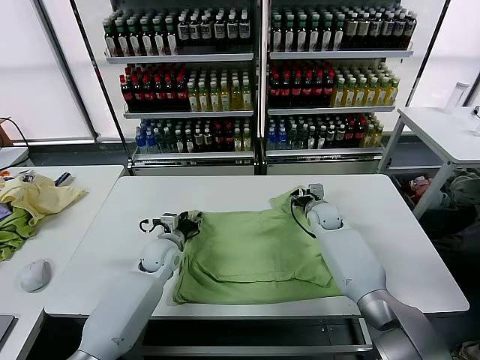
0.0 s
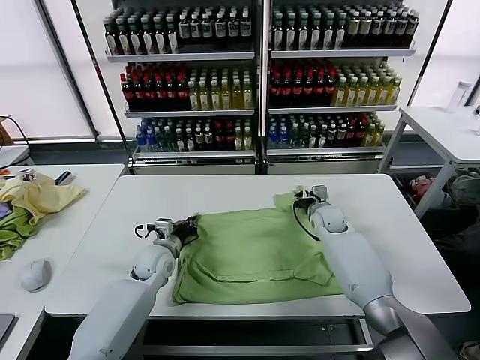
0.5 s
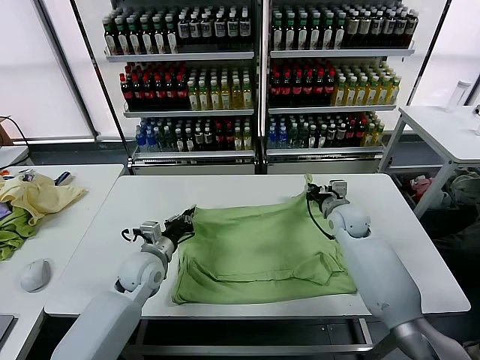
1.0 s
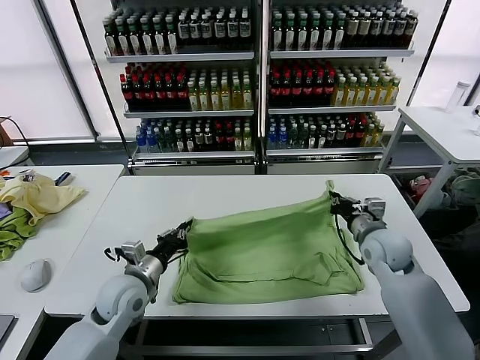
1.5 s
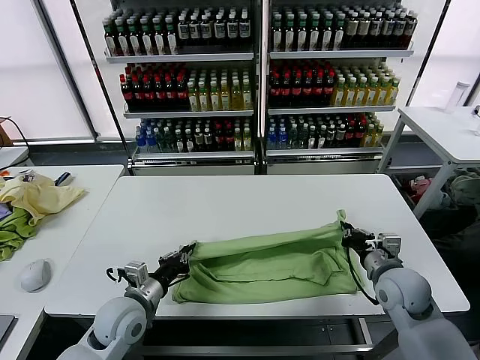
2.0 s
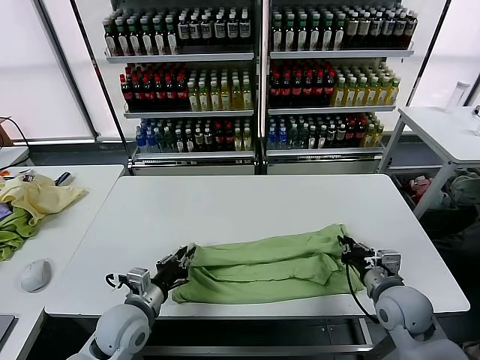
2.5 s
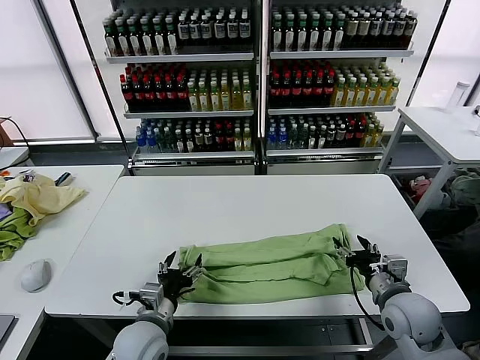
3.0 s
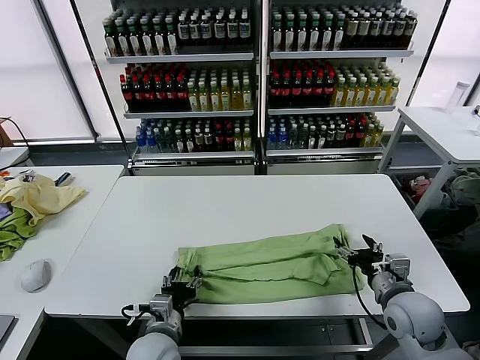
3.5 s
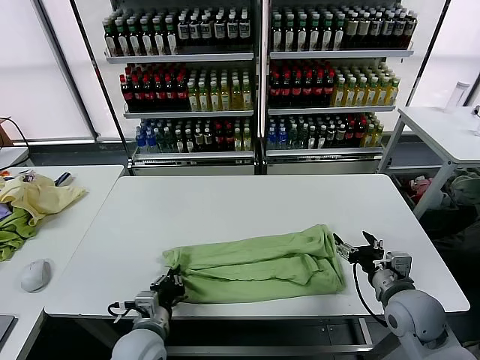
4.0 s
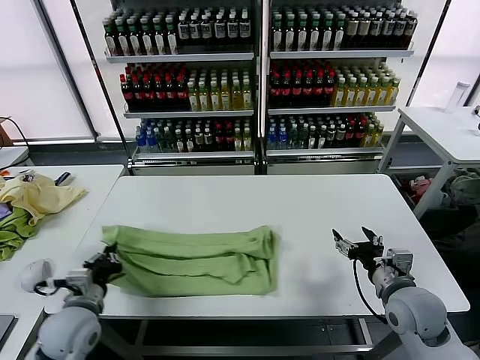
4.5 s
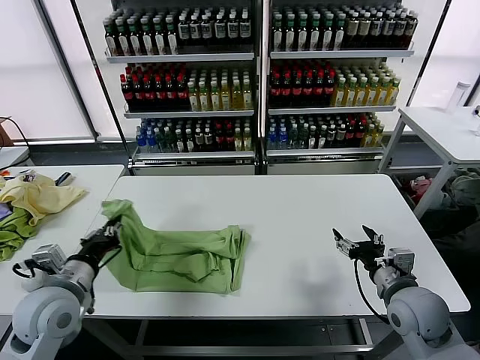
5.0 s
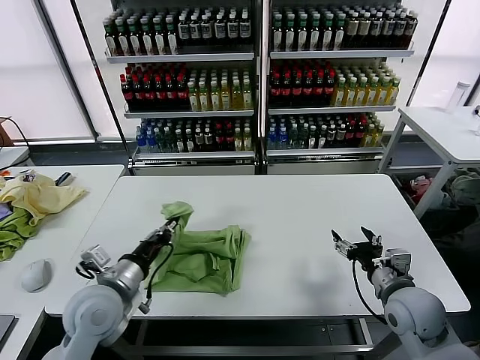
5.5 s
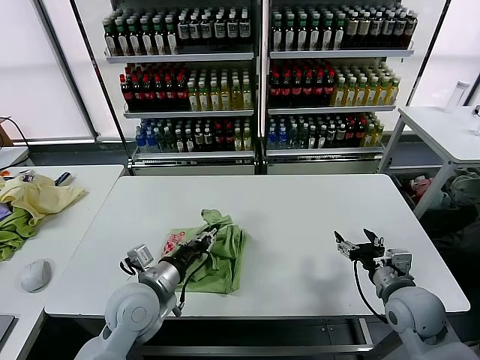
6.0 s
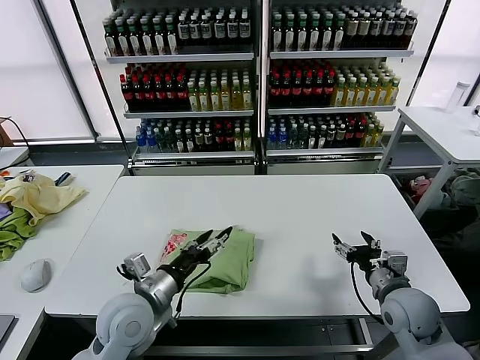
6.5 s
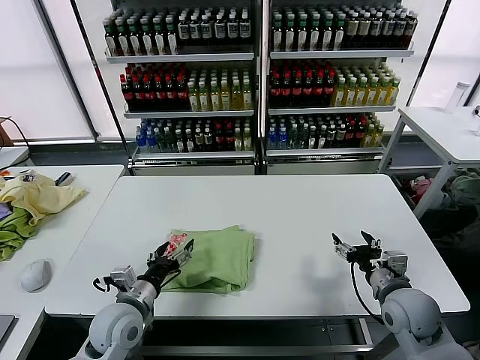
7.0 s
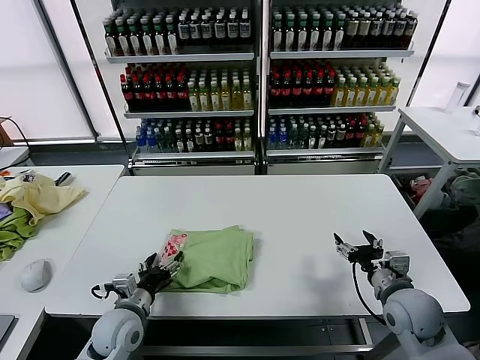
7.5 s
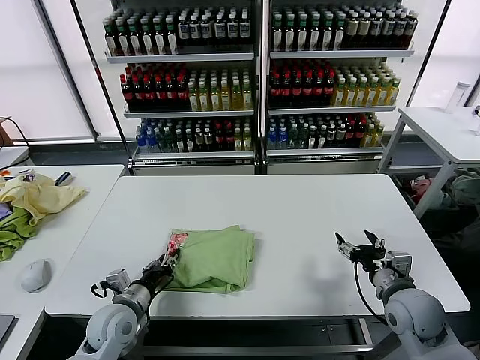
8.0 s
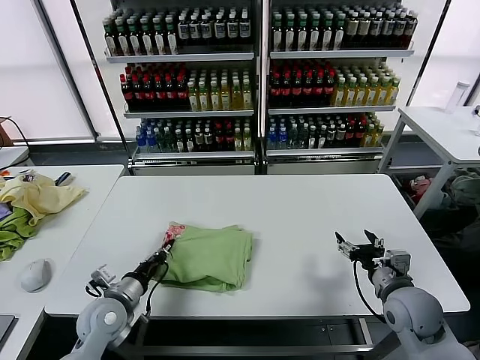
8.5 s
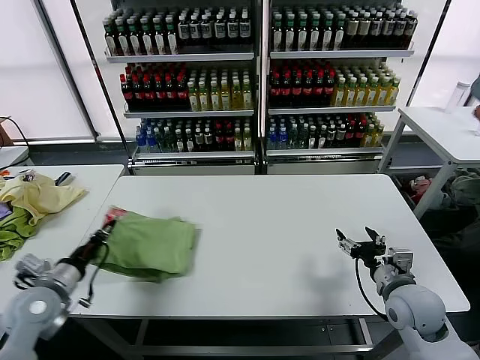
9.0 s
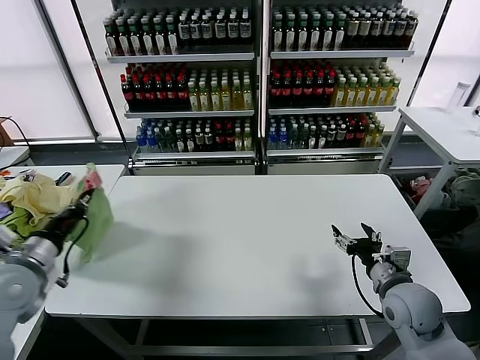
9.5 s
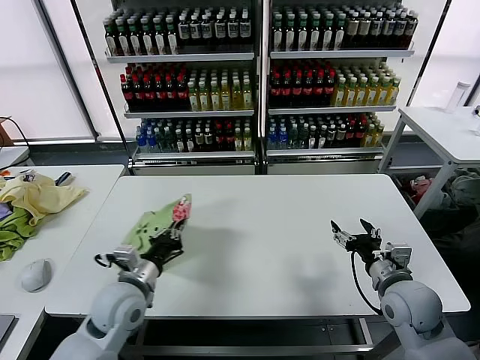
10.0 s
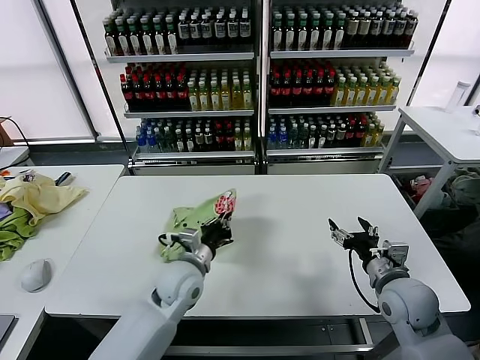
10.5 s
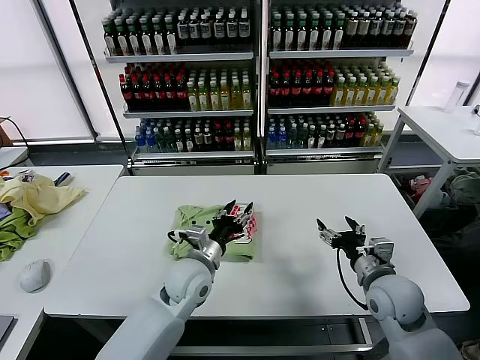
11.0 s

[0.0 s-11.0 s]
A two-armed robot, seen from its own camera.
Task of the whole recording: fold and organize the clothes.
Step, 0.5 to 2.5 s: use both grippers to drag the upper edge of the fabric backward and fold it over the lower edge.
Step, 3.0 to 3.5 s: use the left gripper to clamp the left edge of the fabric.
Step, 4.0 to 6.0 s: use the left gripper to drag the left edge of the fabric to the left and folds it over the right edge.
Step, 6.5 to 10.5 s: Flip the folded clothes over with left gripper.
0.0 to 2.0 s: Both grippers travel together backward, approximately 20 cm. The right gripper closes up; the left gripper closes.
2.0 to 3.5 s: The left gripper heads to the right and backward, covering approximately 10 cm, and opens its fingers. Meanwhile the right gripper is displaced backward by roughly 5 cm, and opens up.
3.5 to 5.5 s: The left gripper goes some 15 cm upward and to the left, and closes up.
5.5 to 7.5 s: The left gripper travels downward by about 10 cm, and opens up.
7.5 to 9.0 s: The left gripper travels to the left and upward by roughly 15 cm, and closes its fingers.
9.0 to 11.0 s: The left gripper travels to the right by some 30 cm, and opens.

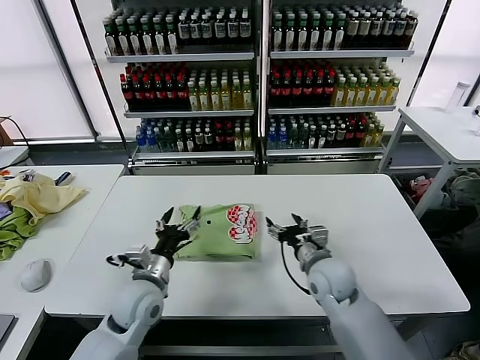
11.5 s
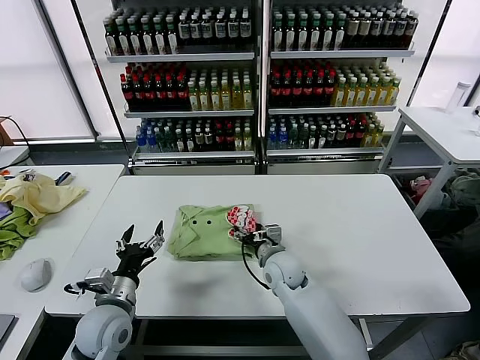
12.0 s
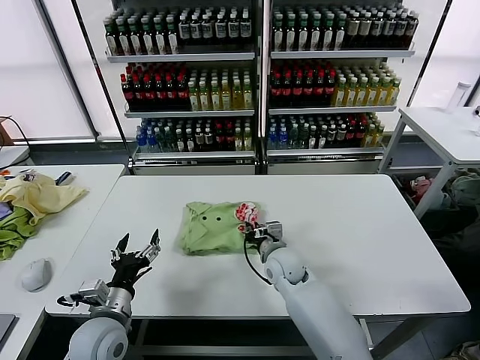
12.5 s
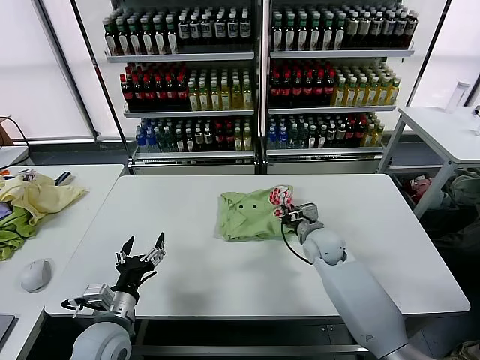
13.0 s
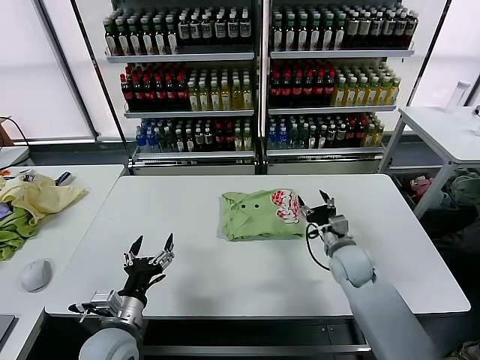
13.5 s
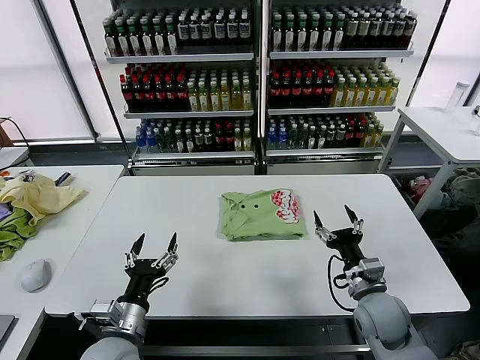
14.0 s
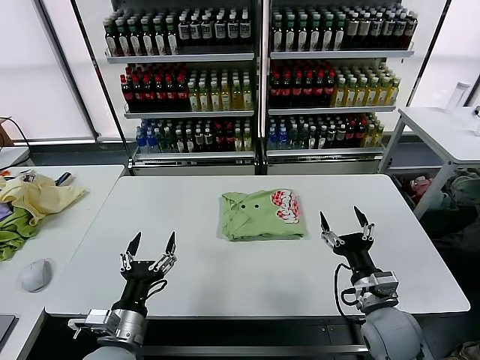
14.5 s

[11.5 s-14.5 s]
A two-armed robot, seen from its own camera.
Task of the whole recording: fold and organize the clothes.
Step, 11.5 to 13.0 s: Drag the clothes to the center of the table.
11.5 to 13.0 s: The left gripper travels backward and to the left by some 10 cm. The right gripper heads forward, covering approximately 10 cm, travels to the left and back again, roughly 10 cm each way, and closes.
13.0 to 14.5 s: The left gripper ends up about 5 cm from where it was. The right gripper goes about 20 cm backward and to the right, and opens its fingers.

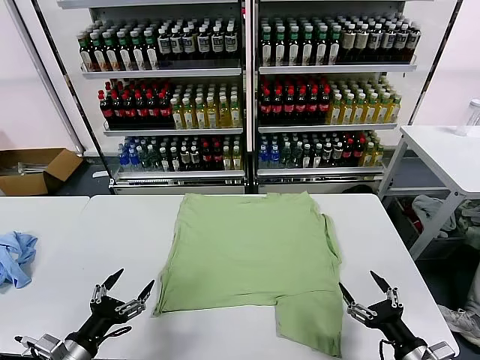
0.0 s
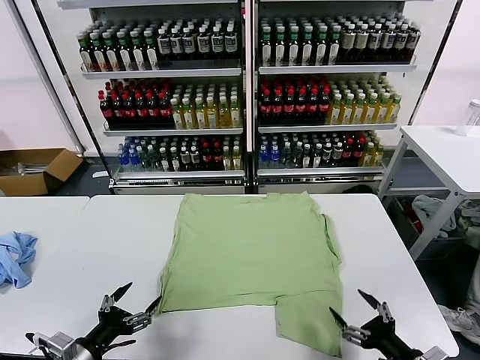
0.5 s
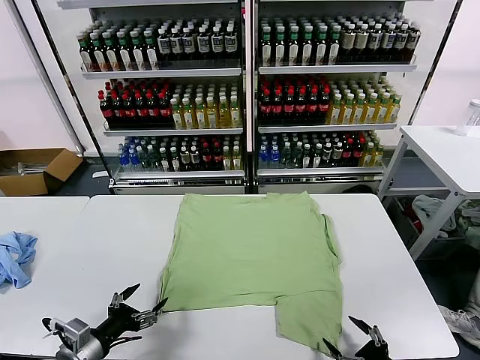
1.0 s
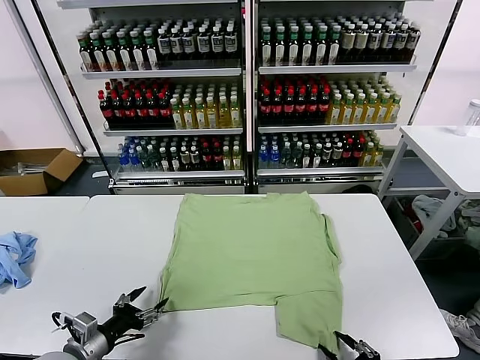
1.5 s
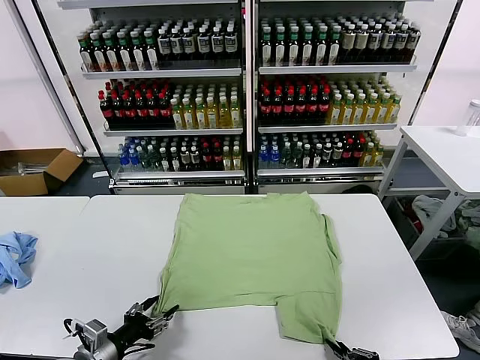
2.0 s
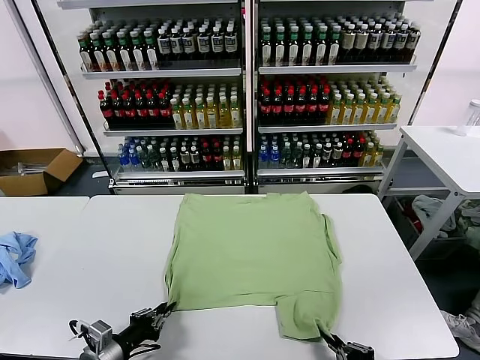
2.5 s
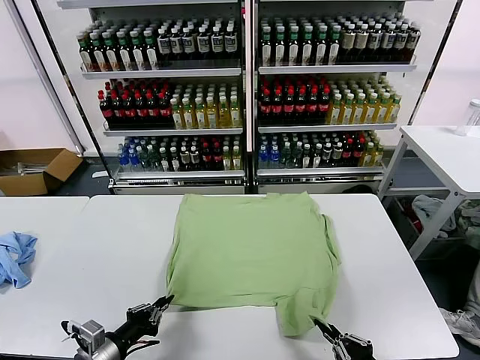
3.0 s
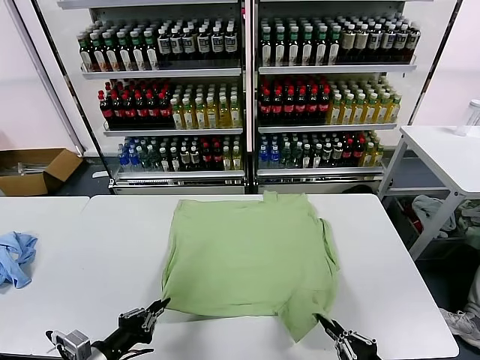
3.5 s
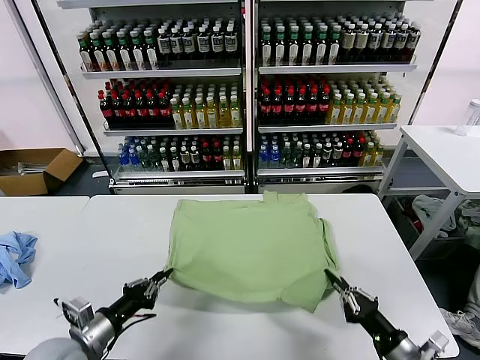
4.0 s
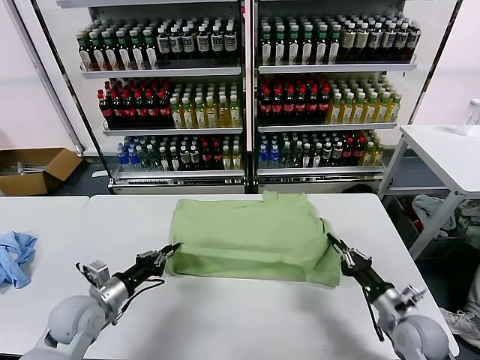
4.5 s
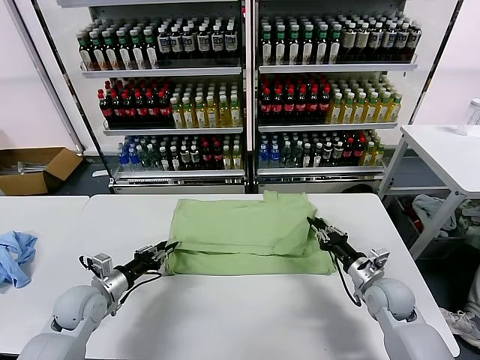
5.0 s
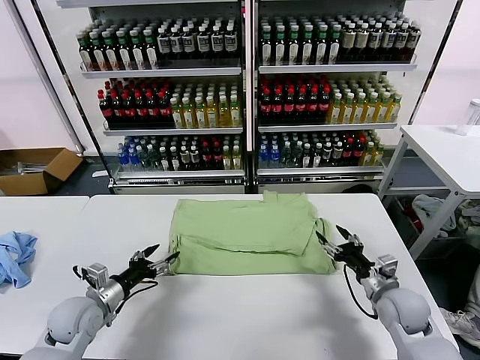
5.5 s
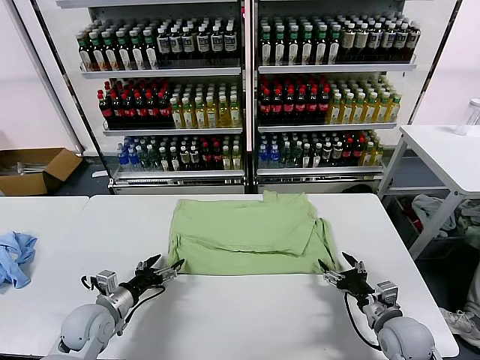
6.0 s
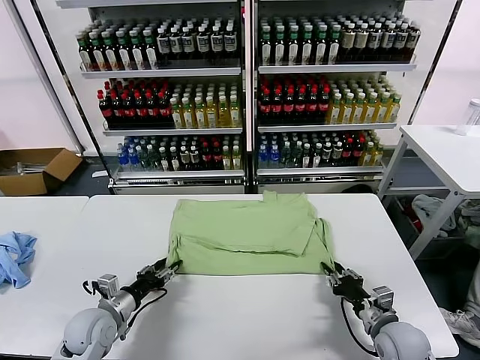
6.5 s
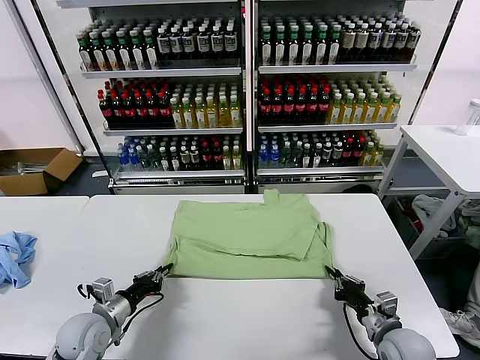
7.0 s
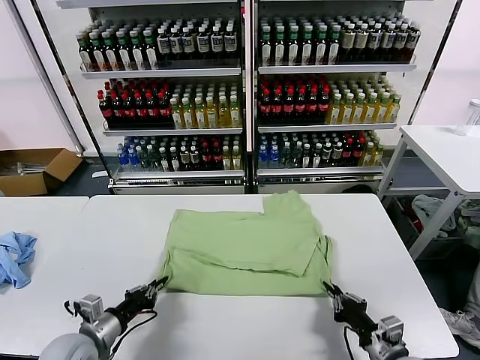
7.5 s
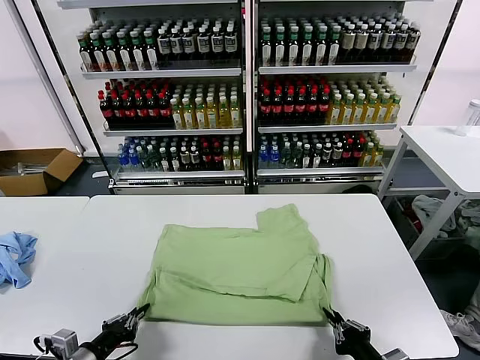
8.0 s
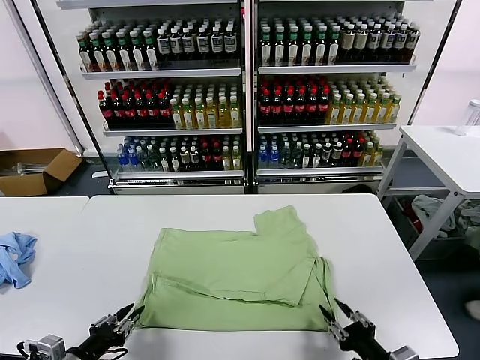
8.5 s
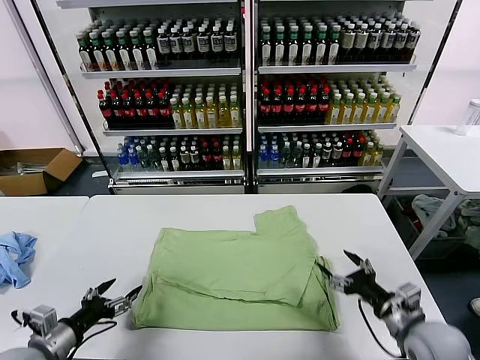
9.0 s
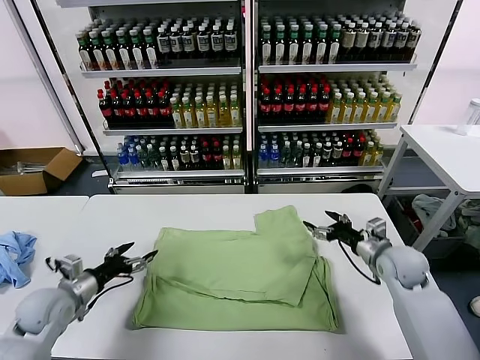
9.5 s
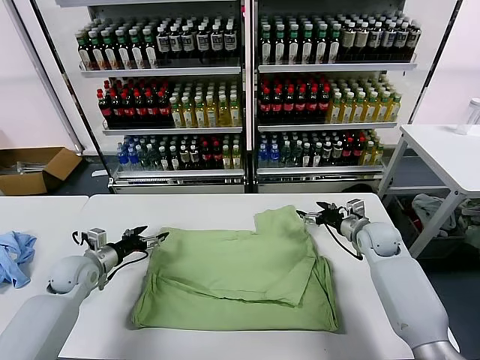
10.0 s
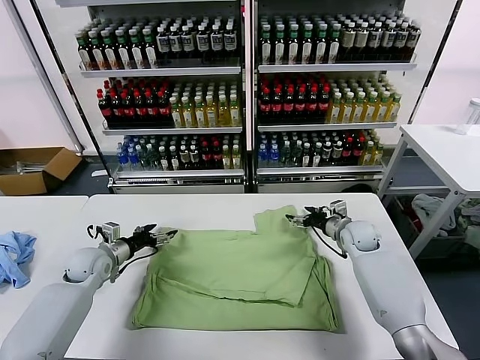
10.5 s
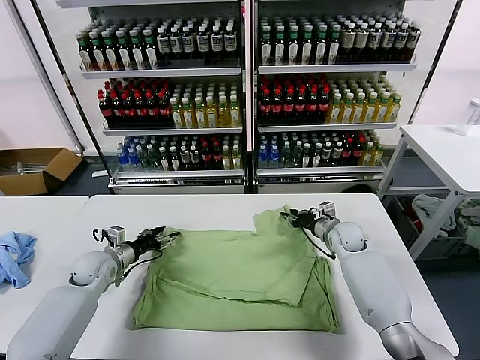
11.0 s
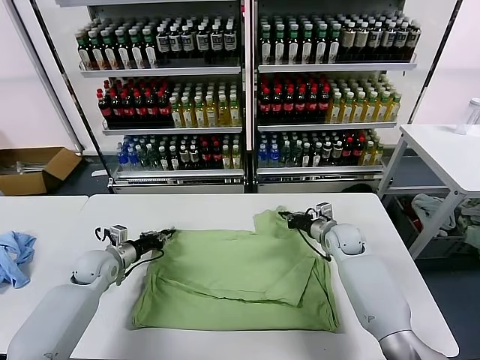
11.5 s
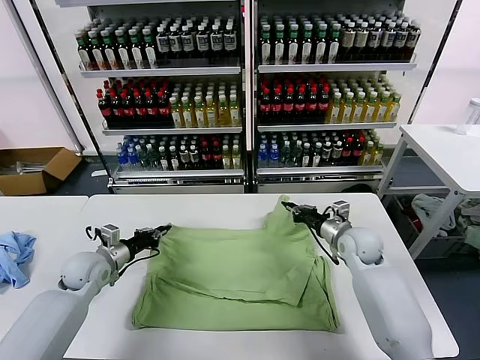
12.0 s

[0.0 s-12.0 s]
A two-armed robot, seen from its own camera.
Task of the whole recording: fold and organize the clothes.
Step, 0.0 to 2.5 s: use both grippers simultaneously to clamp the lower edge of the clothing fabric.
Step, 3.0 to 5.0 s: use both grippers to drag the lower edge of the fabric forward and fold it over the upper edge.
Step, 5.5 to 8.0 s: Drag the clothes downward with both gripper.
Step, 9.0 to 11.5 s: use both grippers simultaneously to clamp the upper edge of the clothing fabric.
2.0 to 4.0 s: The left gripper shifts by some 5 cm, and closes up. The right gripper moves forward, approximately 10 cm.
4.0 to 6.0 s: The left gripper moves forward and downward, approximately 10 cm, and opens up, while the right gripper moves forward, roughly 5 cm, and opens its fingers.
6.0 to 8.0 s: Both grippers move backward, about 15 cm. The left gripper closes, while the right gripper closes its fingers.
8.0 to 10.0 s: The two grippers go some 30 cm forward. The right gripper opens its fingers. Meanwhile the left gripper opens its fingers.
10.0 to 12.0 s: The left gripper closes its fingers. Meanwhile the right gripper goes approximately 5 cm backward, and closes.
